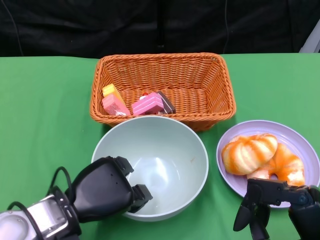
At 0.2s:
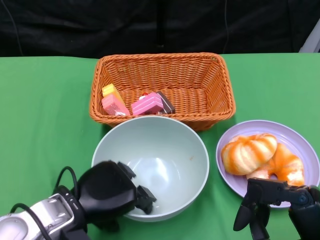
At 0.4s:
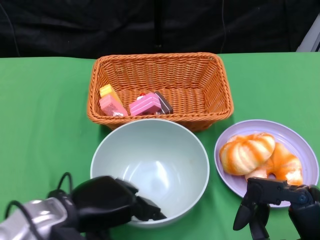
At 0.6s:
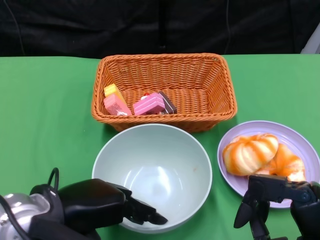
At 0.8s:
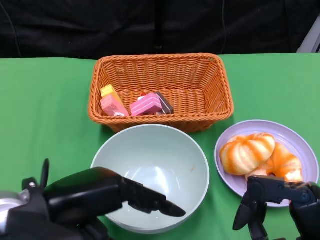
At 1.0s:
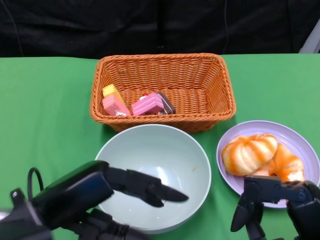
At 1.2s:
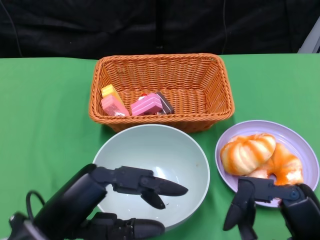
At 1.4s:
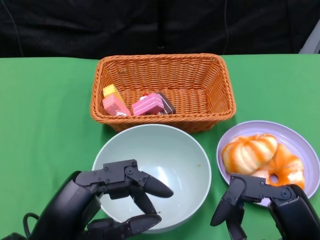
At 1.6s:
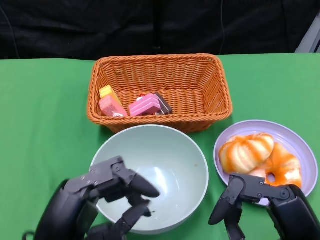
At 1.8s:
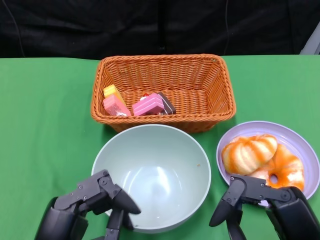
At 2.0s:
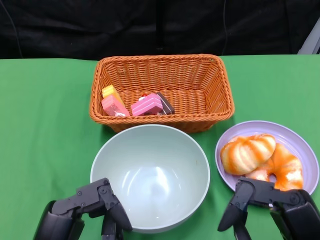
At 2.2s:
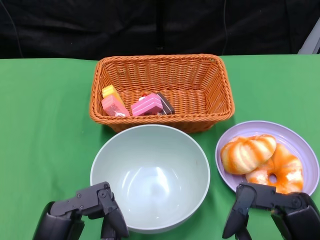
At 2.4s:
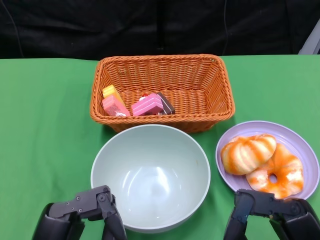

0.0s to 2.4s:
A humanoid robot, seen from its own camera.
0.0s to 1.2s: The left hand moves upward and backward, roughly 10 cm.
1.2s to 2.4s: The left hand moves downward, about 5 cm.

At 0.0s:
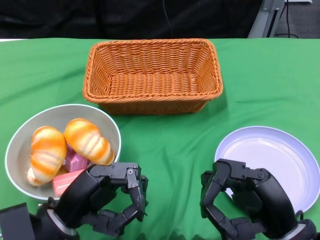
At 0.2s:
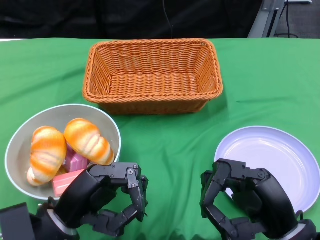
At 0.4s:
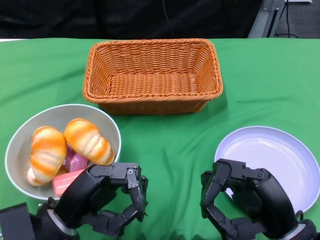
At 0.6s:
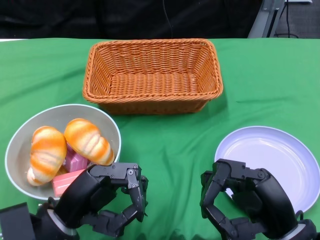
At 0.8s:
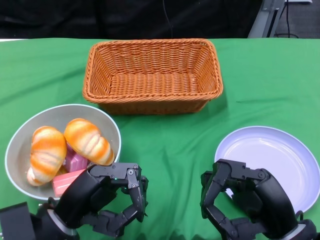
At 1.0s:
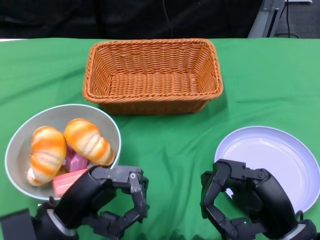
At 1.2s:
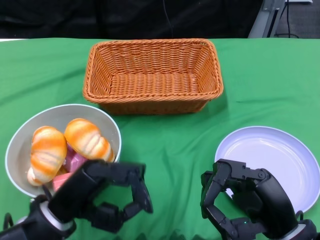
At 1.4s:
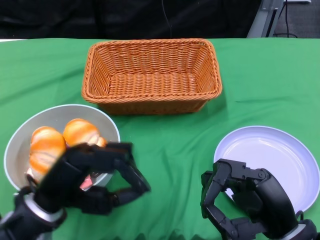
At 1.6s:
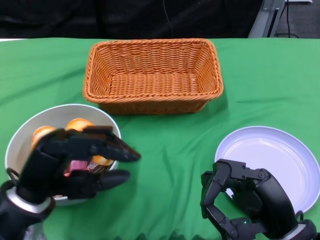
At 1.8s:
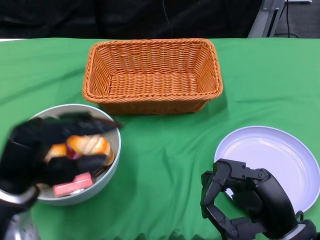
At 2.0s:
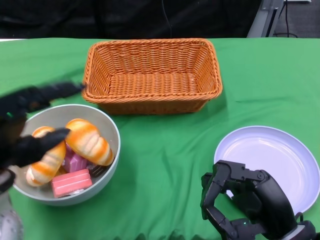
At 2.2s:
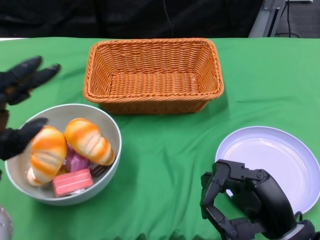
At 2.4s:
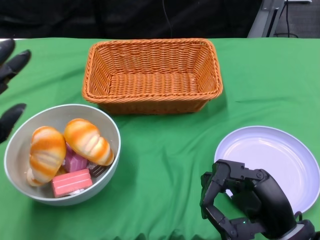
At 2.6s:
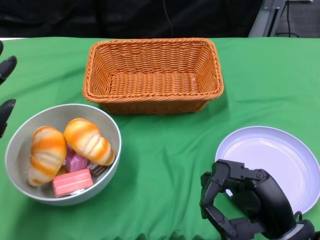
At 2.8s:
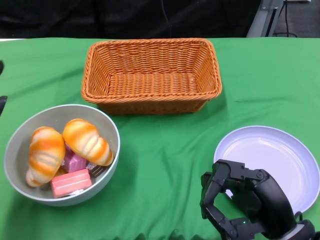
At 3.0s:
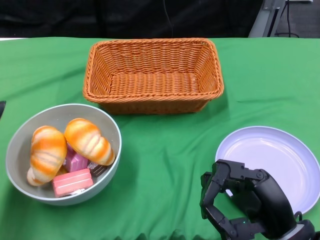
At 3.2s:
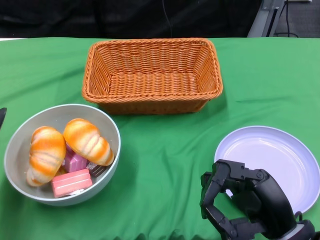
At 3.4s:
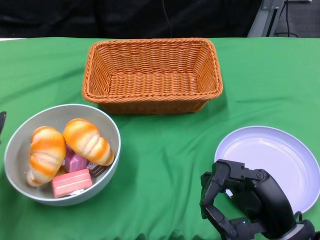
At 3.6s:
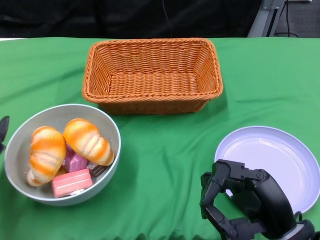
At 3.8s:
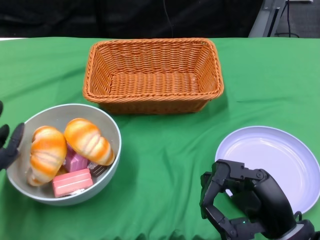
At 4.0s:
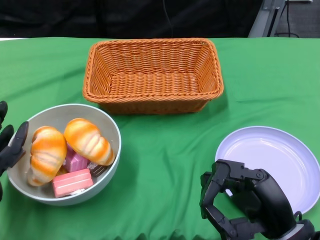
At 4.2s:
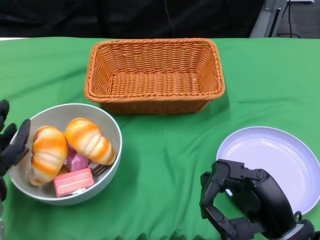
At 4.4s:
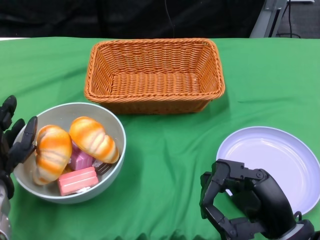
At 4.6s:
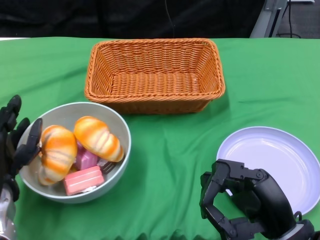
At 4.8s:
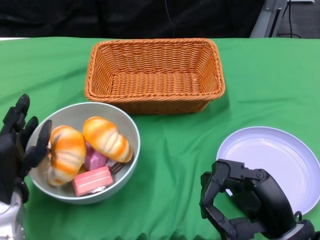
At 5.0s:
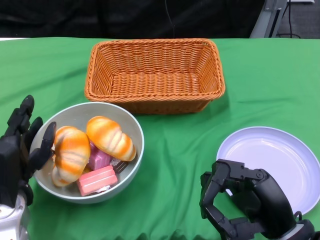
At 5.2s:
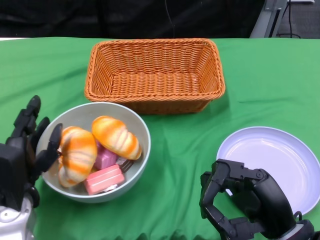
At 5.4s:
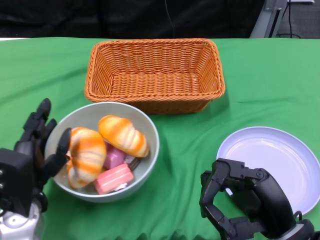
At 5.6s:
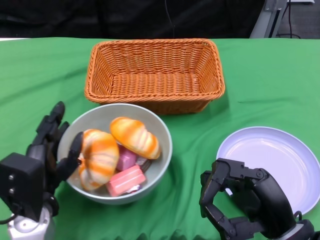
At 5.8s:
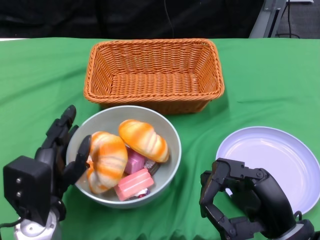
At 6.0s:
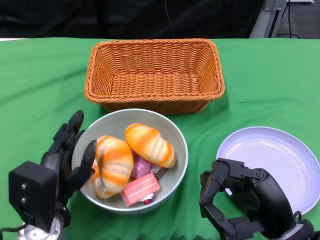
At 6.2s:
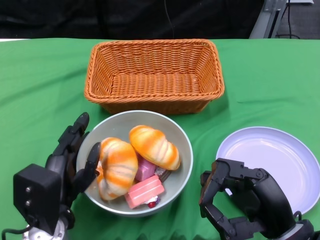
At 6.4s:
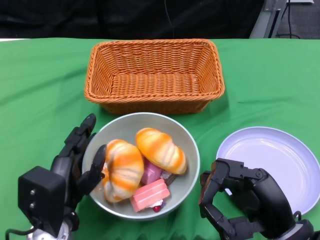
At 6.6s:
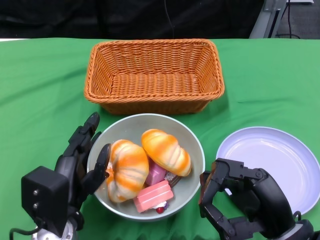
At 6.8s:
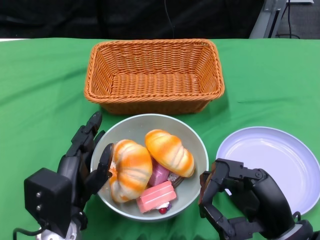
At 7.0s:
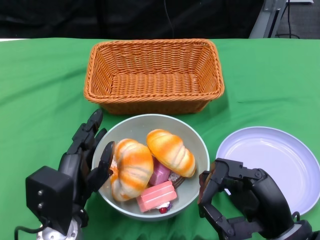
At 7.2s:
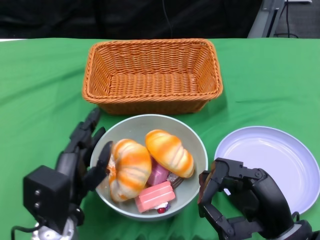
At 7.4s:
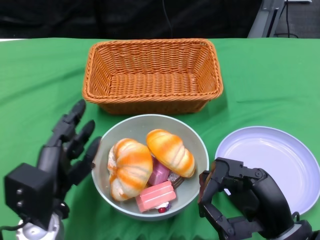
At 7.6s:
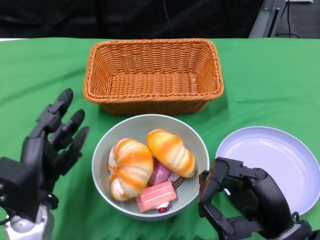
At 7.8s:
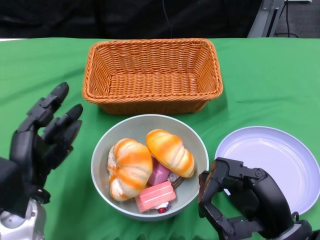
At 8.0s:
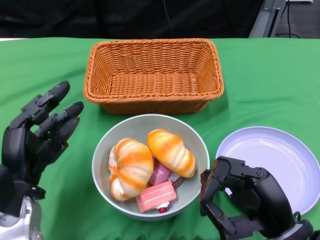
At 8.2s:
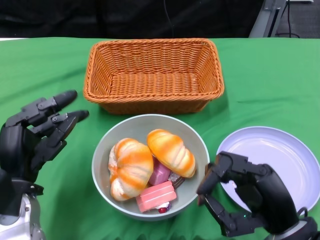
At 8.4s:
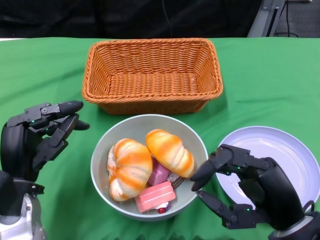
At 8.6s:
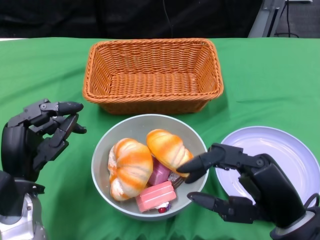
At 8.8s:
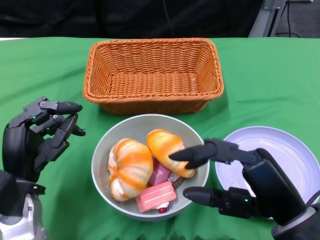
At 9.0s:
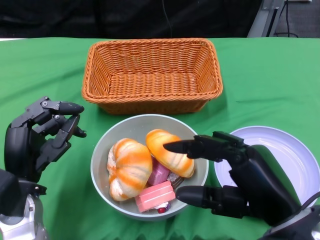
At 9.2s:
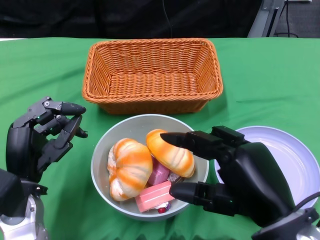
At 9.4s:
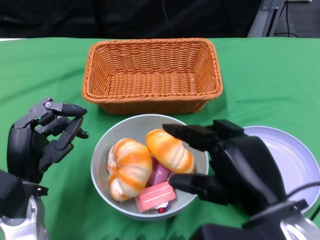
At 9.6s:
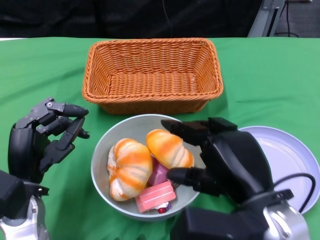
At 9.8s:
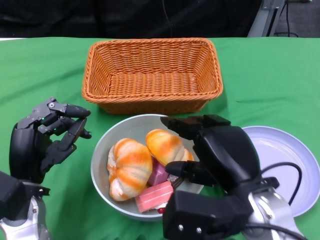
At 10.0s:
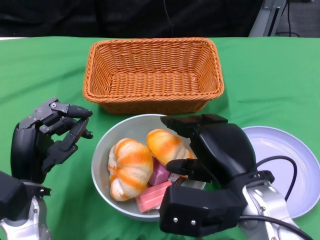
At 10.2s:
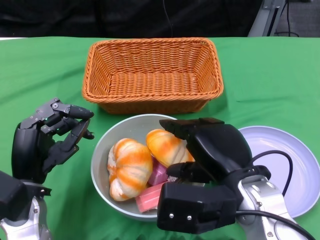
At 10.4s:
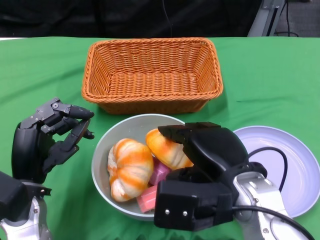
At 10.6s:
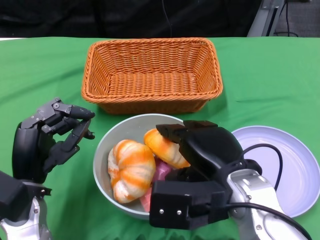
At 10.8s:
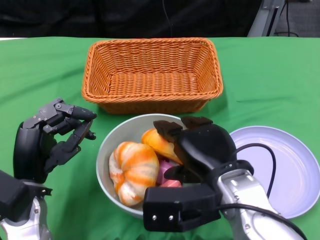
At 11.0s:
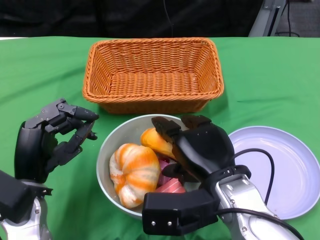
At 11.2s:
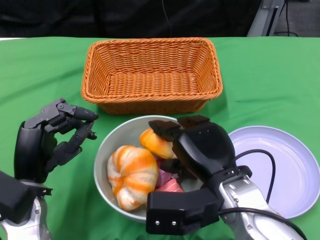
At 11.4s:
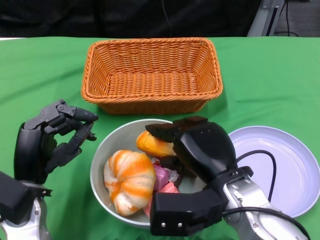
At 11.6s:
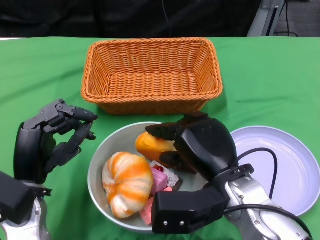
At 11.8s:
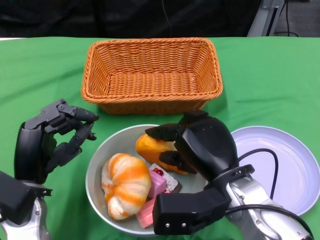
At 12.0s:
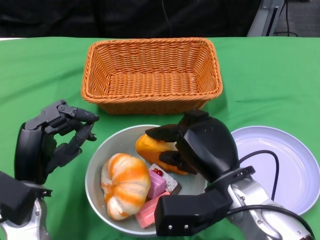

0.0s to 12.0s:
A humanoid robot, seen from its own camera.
Step, 0.0s to 7.2s: Push the bowl to the center of the table using the left gripper.
1.6s to 3.0s: The left hand travels to the left by some 10 cm.
3.0s to 4.4s: The left hand shifts by some 5 cm.
4.4s to 6.0s: The left hand heads to the right, covering some 10 cm.
7.6s to 9.0s: The right hand shifts approximately 10 cm upward.
9.0s to 10.4s: The right hand travels forward and to the left by roughly 10 cm.

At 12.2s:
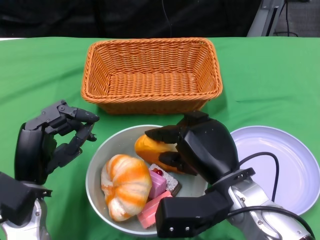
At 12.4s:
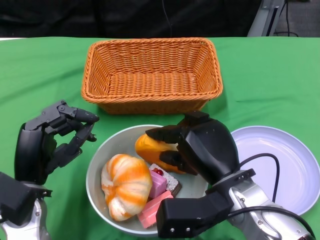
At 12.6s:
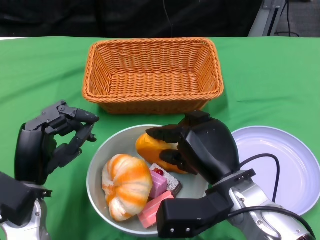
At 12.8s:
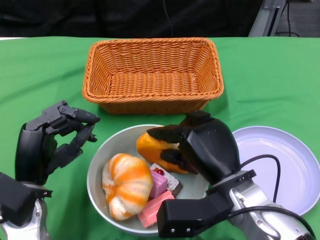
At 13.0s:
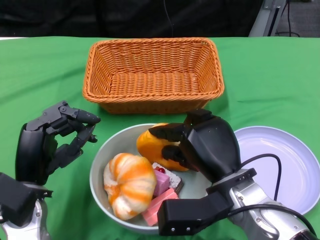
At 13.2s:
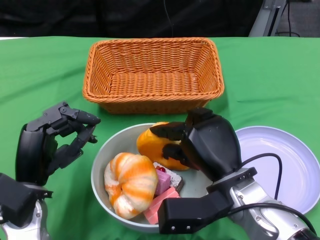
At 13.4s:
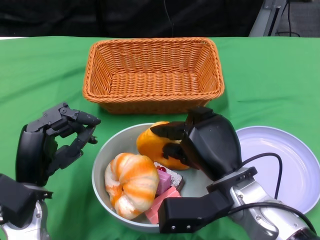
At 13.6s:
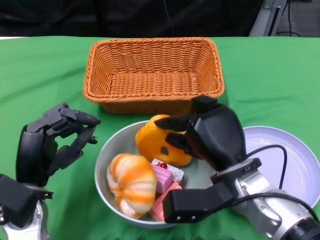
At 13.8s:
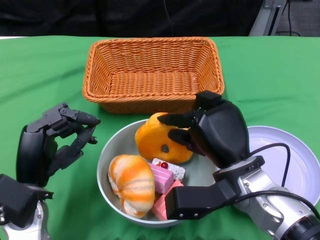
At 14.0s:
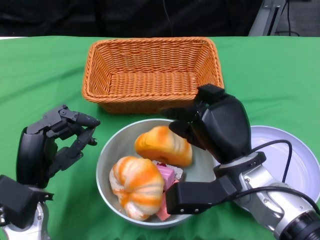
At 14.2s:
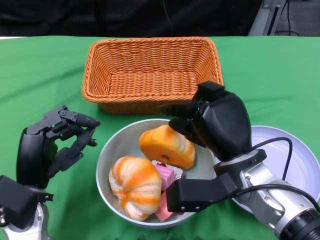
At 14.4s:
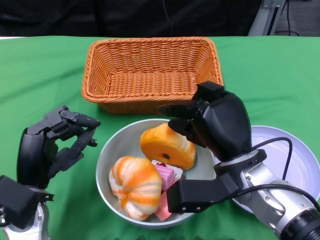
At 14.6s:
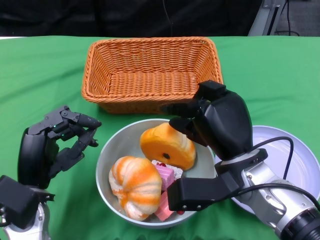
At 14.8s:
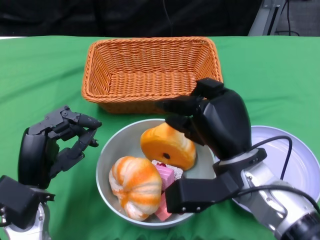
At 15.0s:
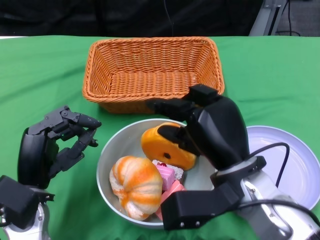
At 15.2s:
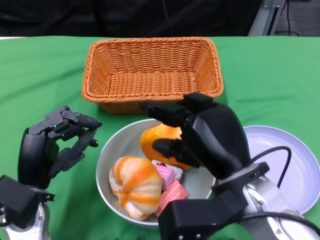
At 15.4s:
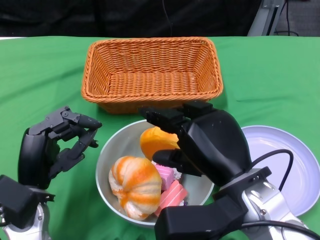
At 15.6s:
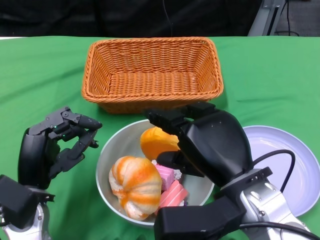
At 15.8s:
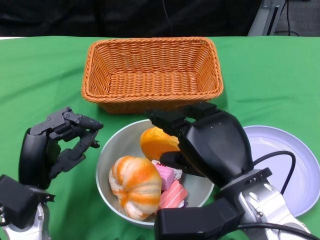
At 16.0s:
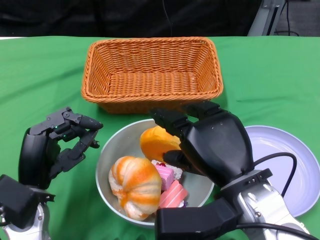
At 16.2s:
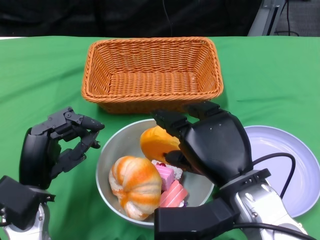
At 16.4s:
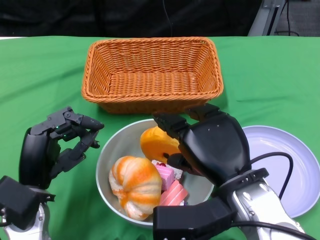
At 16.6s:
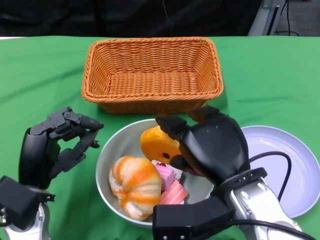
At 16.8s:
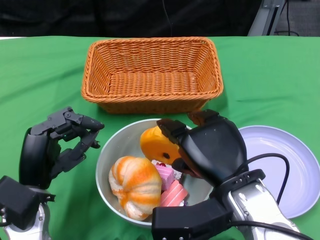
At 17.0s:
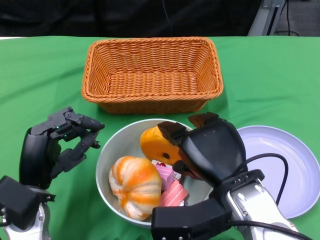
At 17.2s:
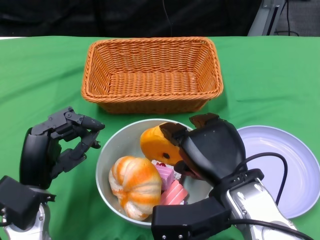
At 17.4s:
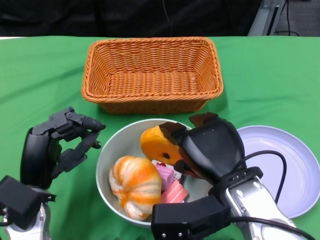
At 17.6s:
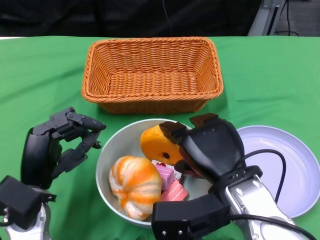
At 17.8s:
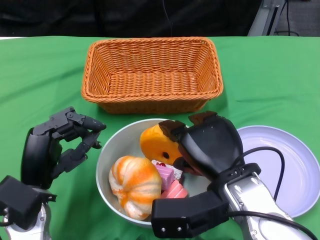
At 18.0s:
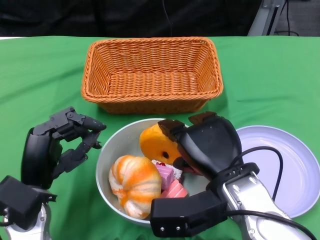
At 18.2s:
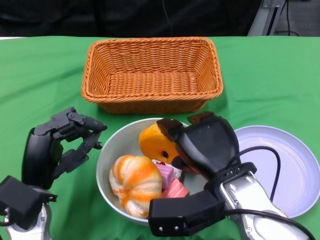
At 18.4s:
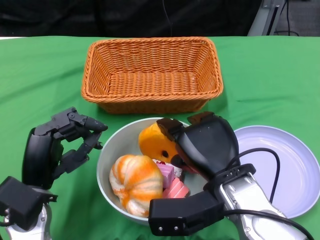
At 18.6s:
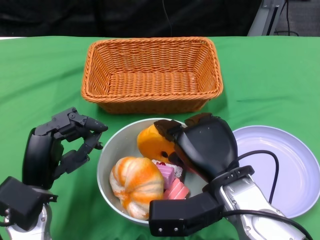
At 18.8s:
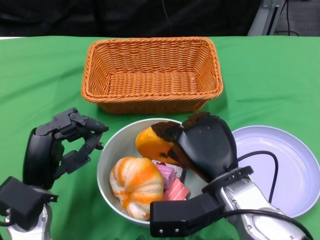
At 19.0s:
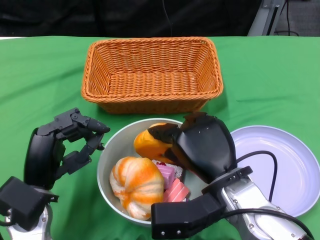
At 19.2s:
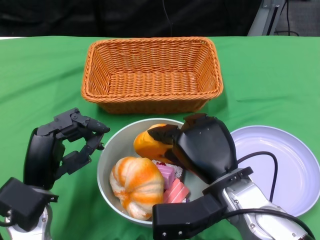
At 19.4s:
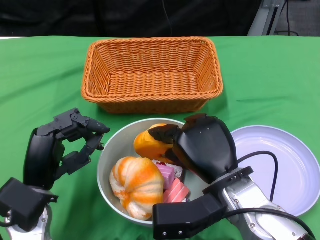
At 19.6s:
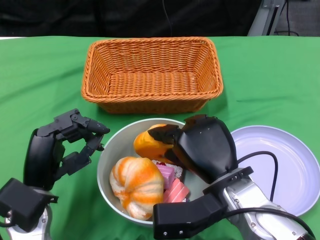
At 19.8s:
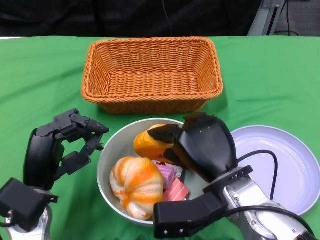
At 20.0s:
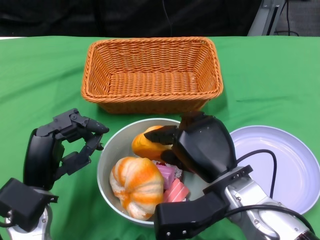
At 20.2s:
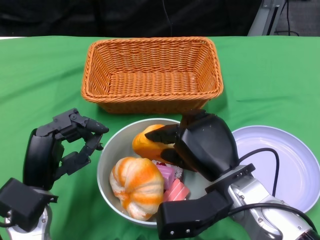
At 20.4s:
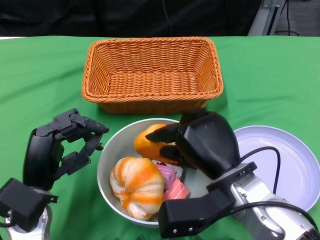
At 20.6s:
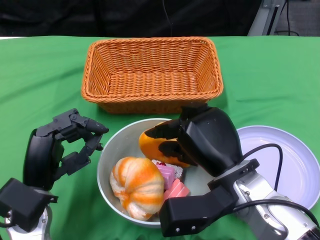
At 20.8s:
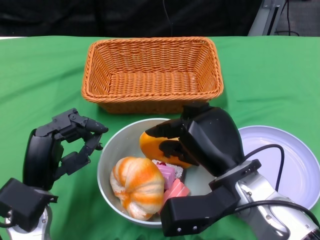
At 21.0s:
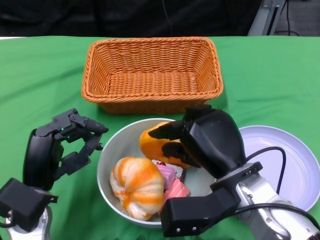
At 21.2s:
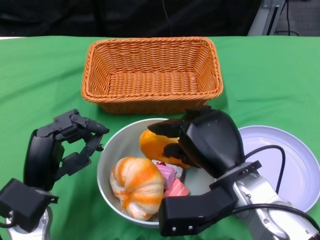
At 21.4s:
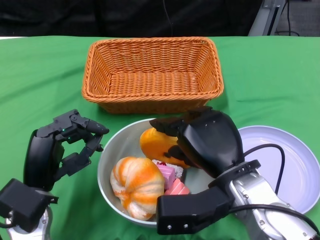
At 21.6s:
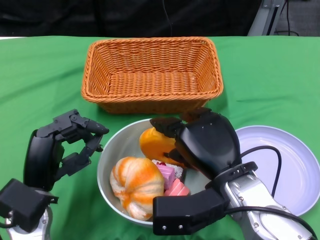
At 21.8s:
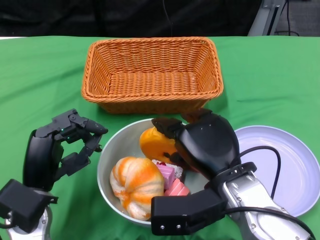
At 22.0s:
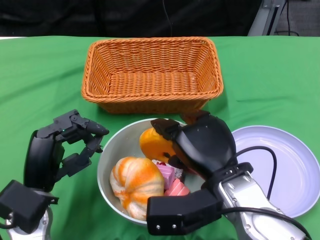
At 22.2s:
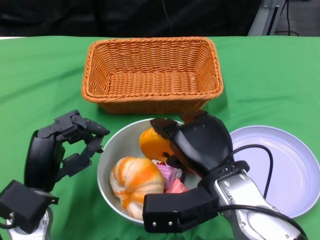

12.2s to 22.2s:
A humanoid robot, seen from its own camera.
13.6s to 15.0s: The hands move only a little.
16.4s to 20.8s: The hands stay close to where they were, moving slightly.
